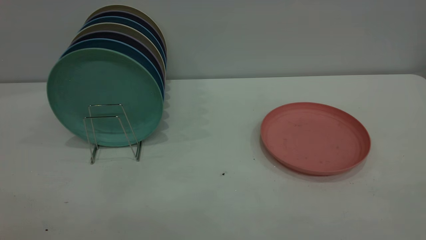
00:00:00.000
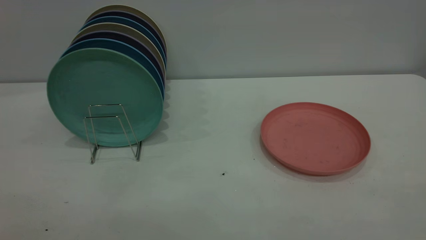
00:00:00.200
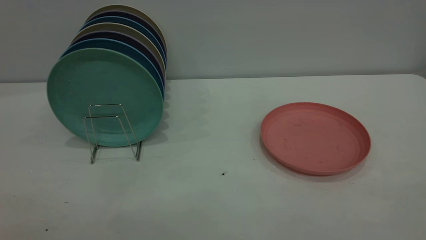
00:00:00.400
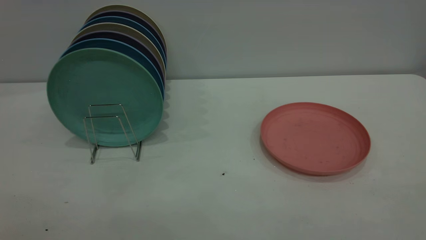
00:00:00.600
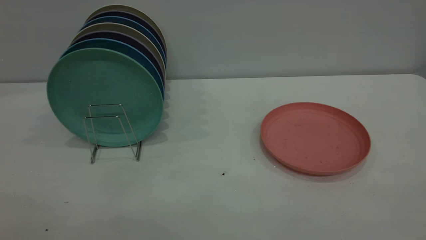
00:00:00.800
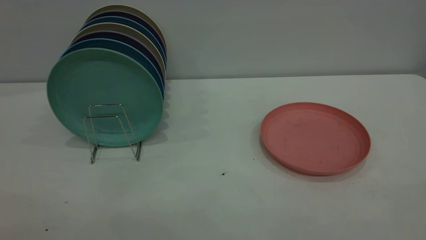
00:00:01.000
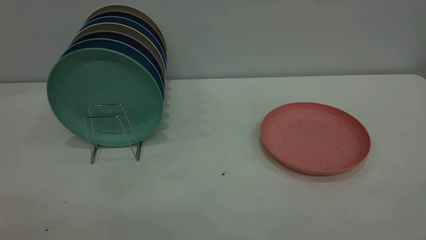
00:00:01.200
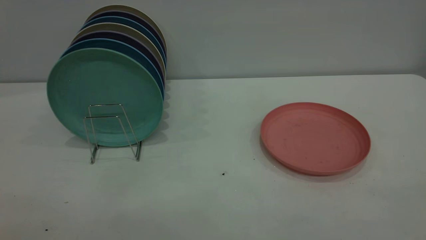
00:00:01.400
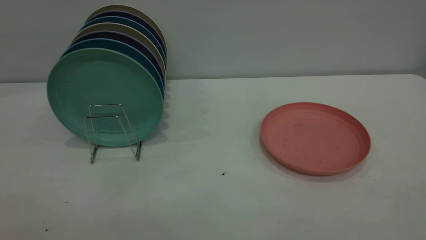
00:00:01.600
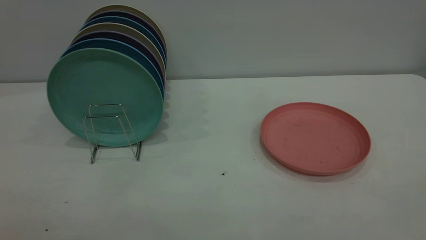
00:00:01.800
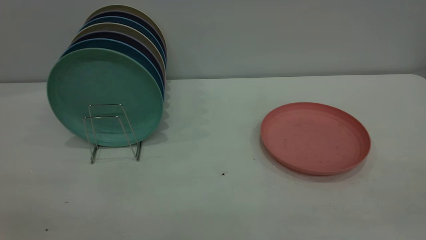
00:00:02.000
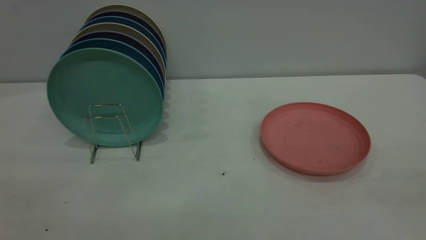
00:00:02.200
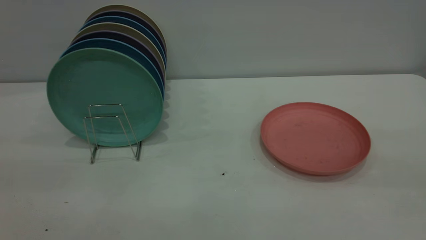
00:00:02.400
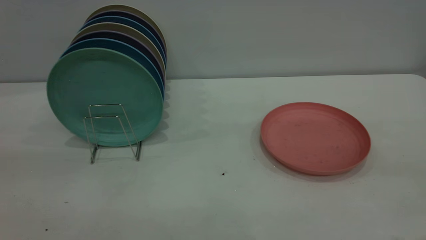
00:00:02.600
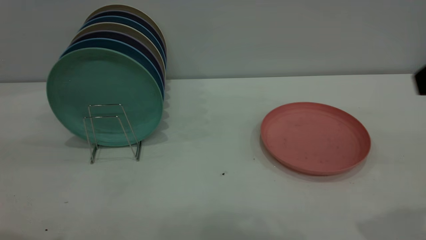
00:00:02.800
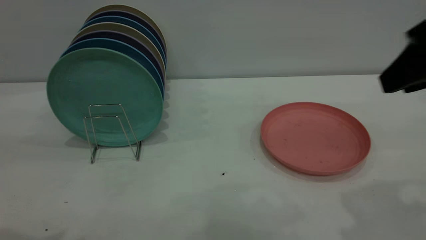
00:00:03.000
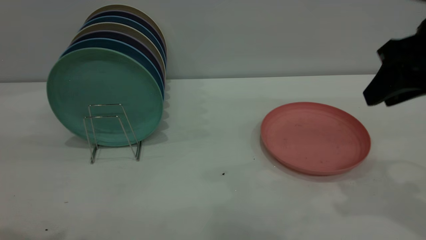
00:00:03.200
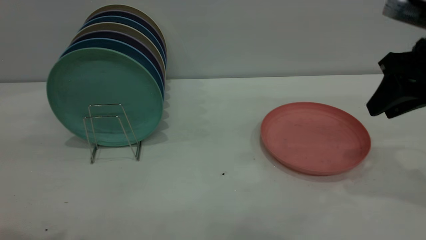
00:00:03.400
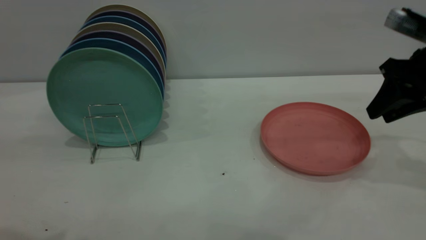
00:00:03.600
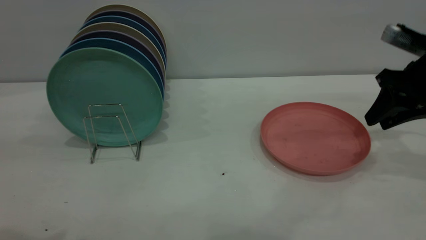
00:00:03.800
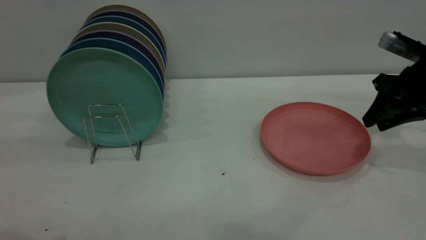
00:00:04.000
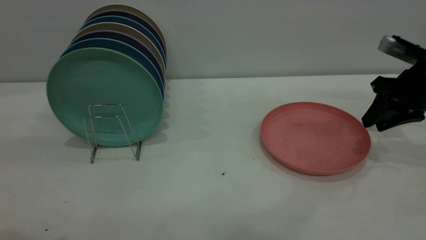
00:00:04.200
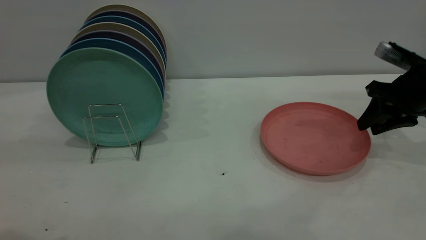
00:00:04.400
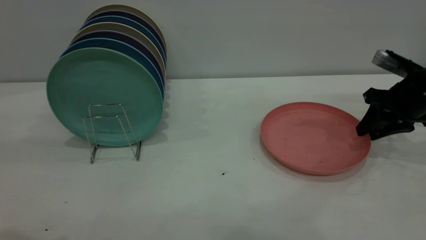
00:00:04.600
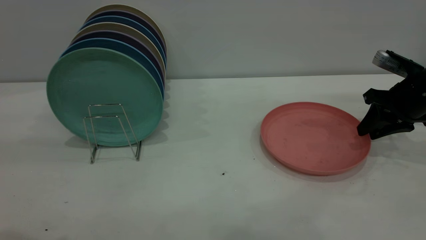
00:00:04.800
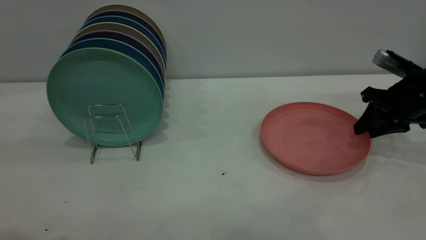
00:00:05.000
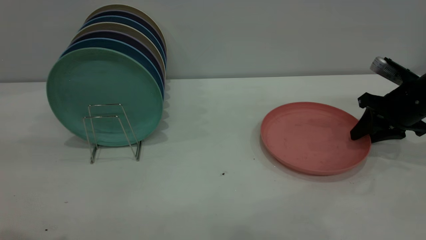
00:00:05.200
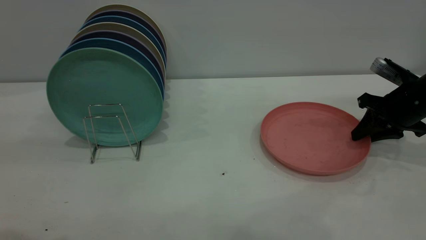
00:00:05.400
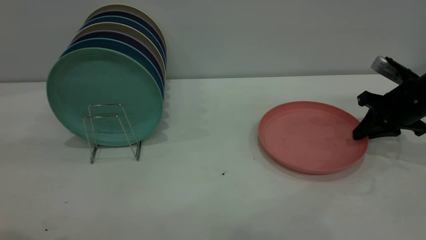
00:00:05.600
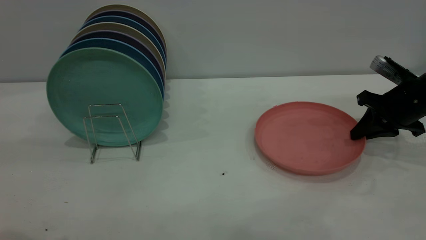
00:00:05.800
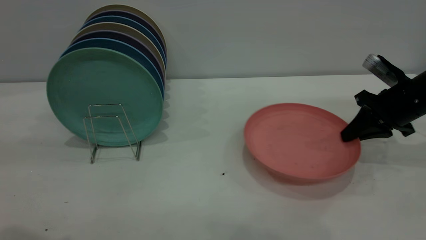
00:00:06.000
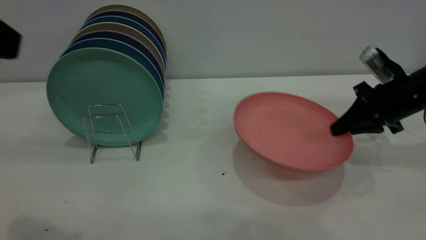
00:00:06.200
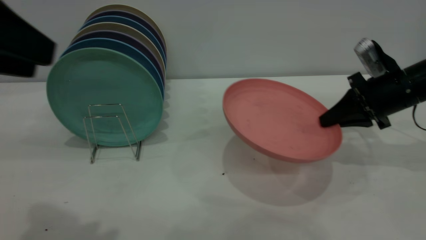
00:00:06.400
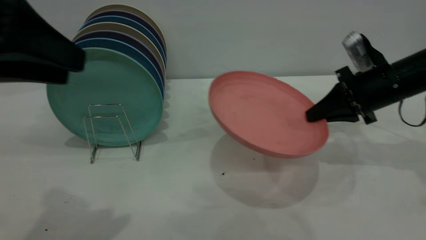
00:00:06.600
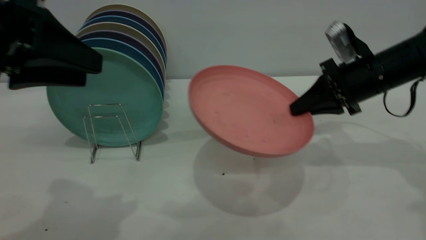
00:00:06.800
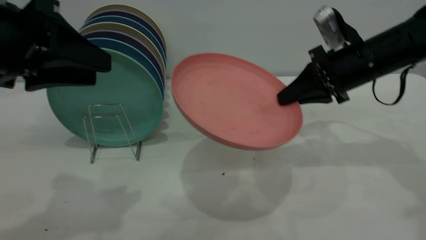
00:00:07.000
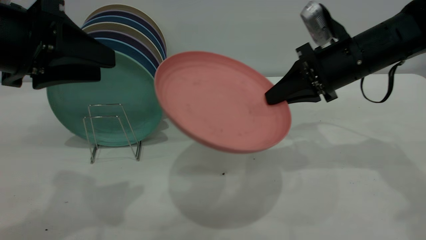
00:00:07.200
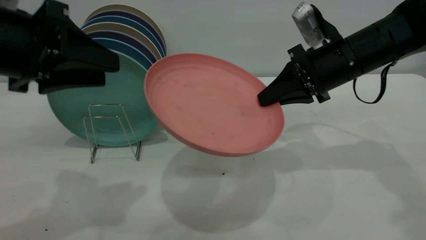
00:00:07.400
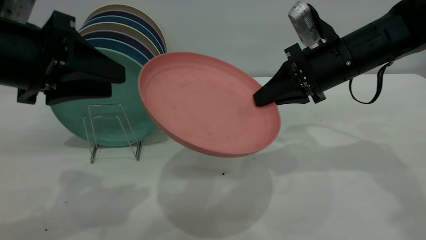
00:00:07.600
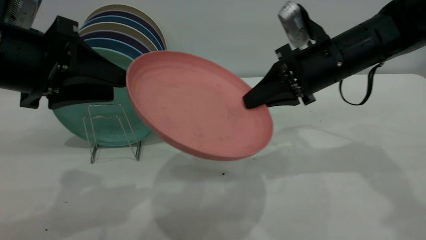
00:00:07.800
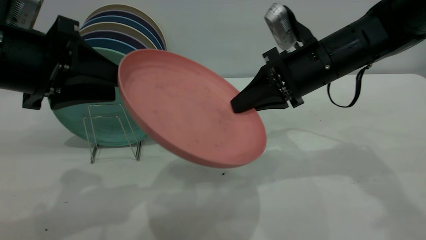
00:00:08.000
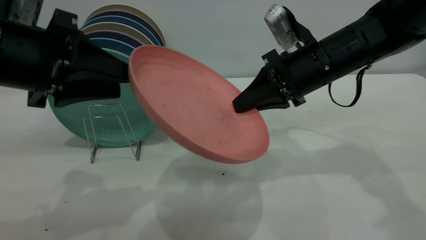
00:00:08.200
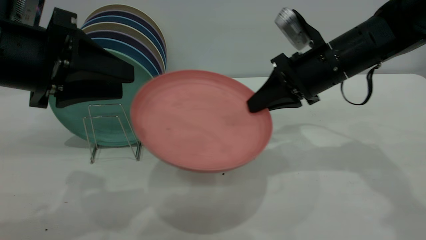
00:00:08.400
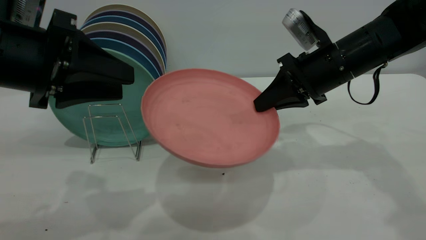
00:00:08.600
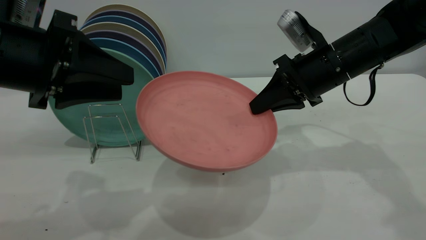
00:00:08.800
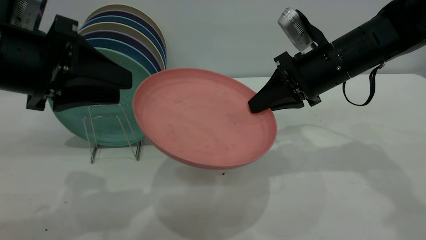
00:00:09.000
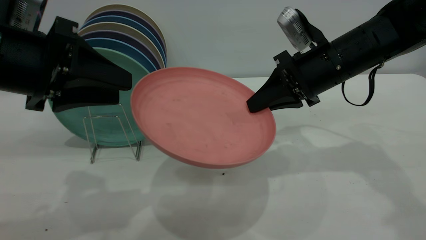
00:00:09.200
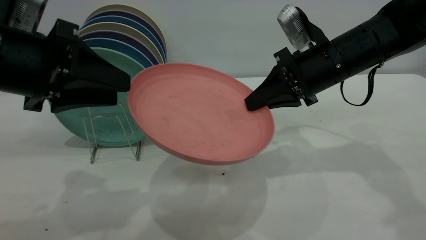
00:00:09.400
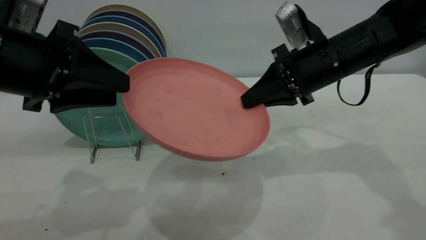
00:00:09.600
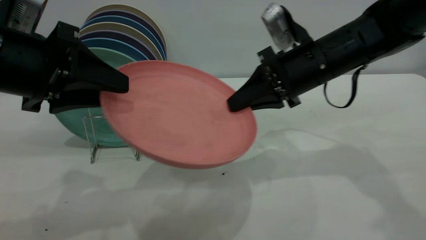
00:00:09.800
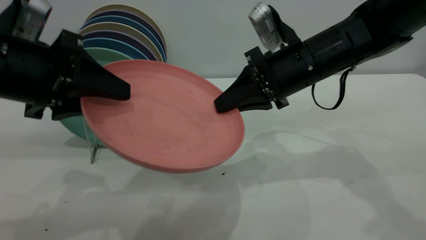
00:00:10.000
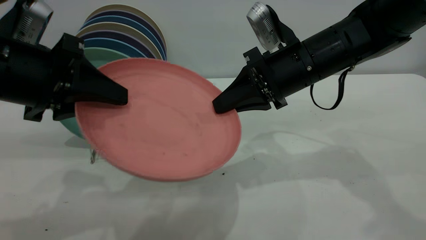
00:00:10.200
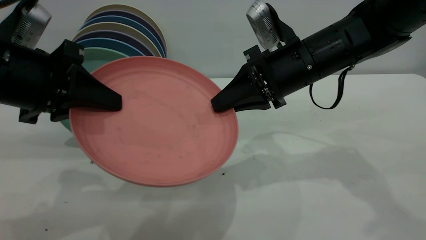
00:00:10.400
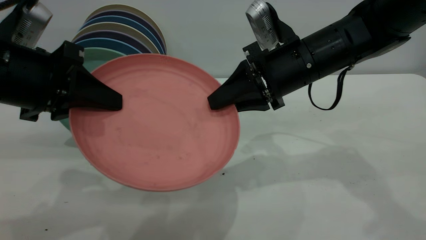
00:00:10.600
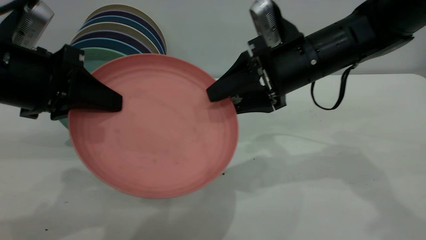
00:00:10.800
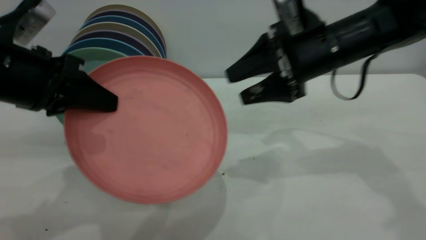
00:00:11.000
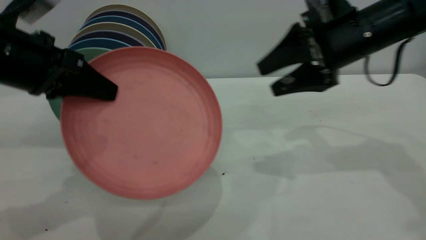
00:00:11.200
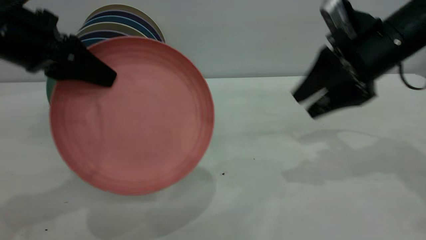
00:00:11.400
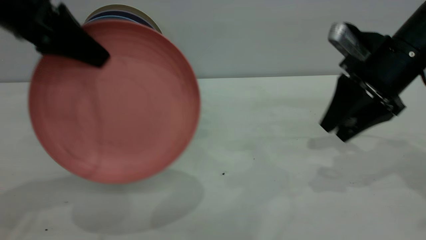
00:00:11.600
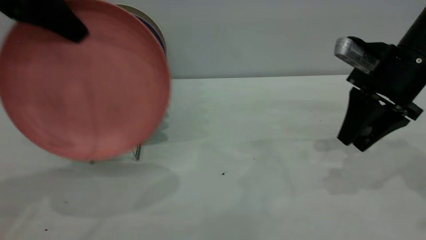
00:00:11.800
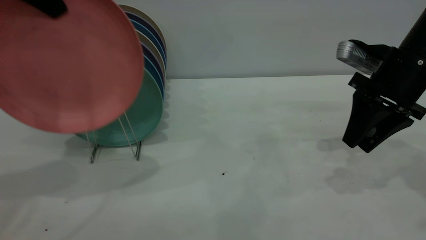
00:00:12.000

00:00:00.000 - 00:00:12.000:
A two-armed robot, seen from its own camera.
Task of the whole recording: the right gripper grasp the pink plate, the right gripper pass the pink plate to the left gripper, and the left gripper place the pink plate on the plate rack.
Step, 00:00:00.000 - 00:00:06.200: Pick up the plate with the right gripper.
Step, 00:00:06.400 - 00:00:10.800: Pass the plate from the right gripper to the left gripper.
00:00:00.000 - 00:00:01.600: Both grippers stay about where they are.
00:00:01.600 - 00:00:03.000: The right gripper goes roughly 25 cm forward.
00:00:03.000 - 00:00:04.400: The right gripper moves forward, downward and to the right, about 25 cm.
00:00:04.400 - 00:00:06.000: The right gripper closes up.
00:00:06.000 - 00:00:07.600: The left gripper moves downward and forward, approximately 15 cm; the right gripper goes roughly 15 cm to the left and upward.
00:00:07.600 - 00:00:09.000: The grippers move only a little.
00:00:09.000 - 00:00:10.400: The left gripper closes its fingers, while the right gripper ends up approximately 5 cm from where it was.
00:00:10.400 - 00:00:12.000: The left gripper is displaced upward and forward by approximately 20 cm. The right gripper moves to the right, approximately 15 cm, and opens up.

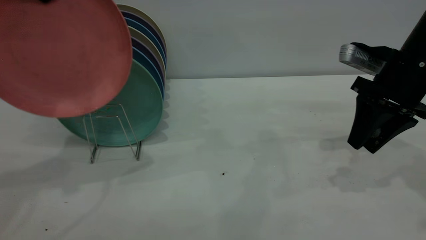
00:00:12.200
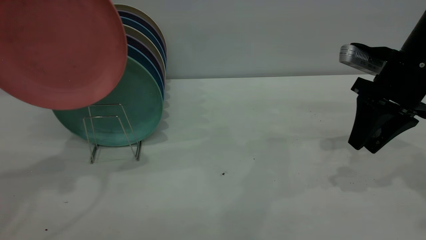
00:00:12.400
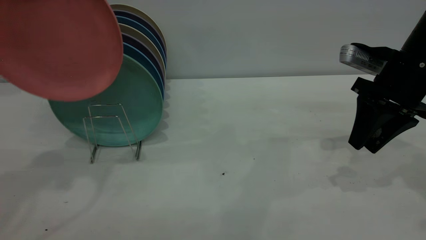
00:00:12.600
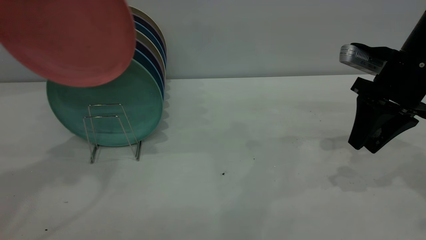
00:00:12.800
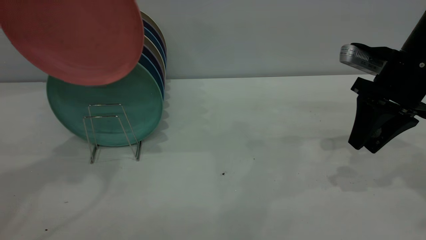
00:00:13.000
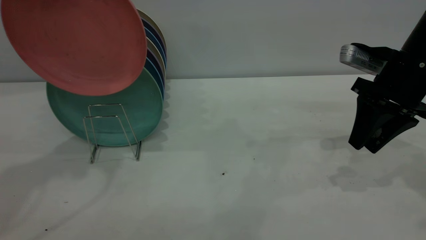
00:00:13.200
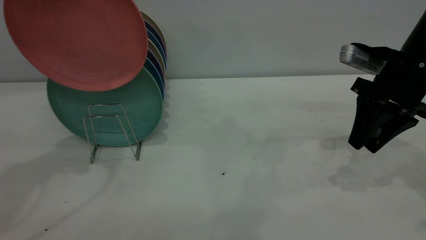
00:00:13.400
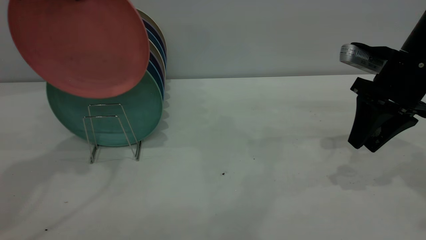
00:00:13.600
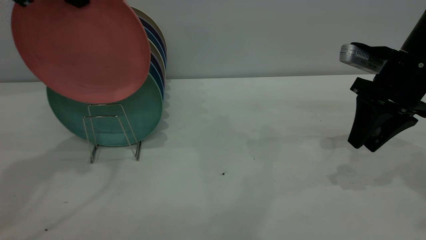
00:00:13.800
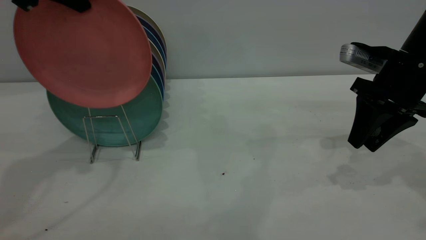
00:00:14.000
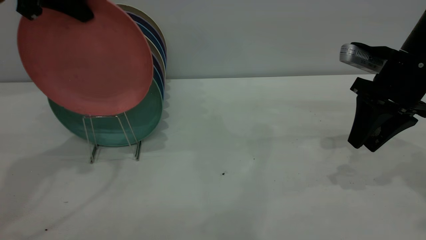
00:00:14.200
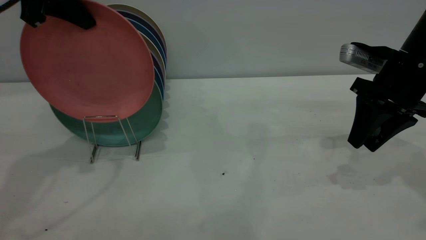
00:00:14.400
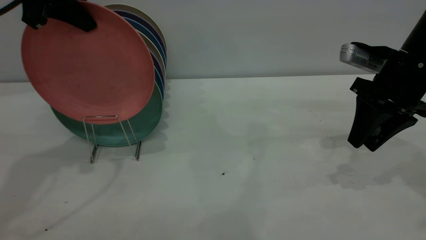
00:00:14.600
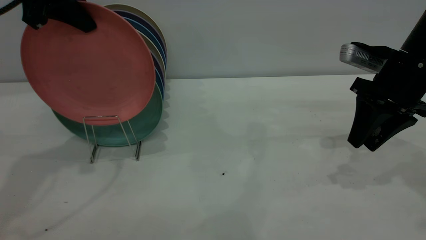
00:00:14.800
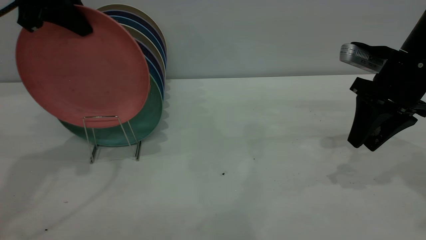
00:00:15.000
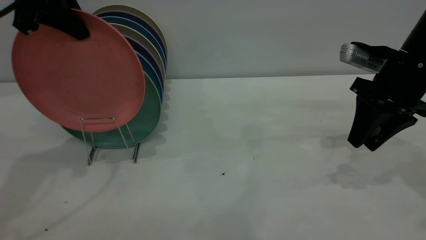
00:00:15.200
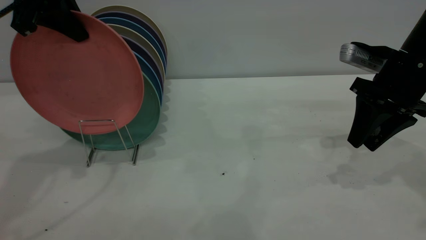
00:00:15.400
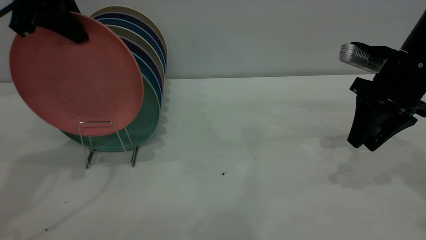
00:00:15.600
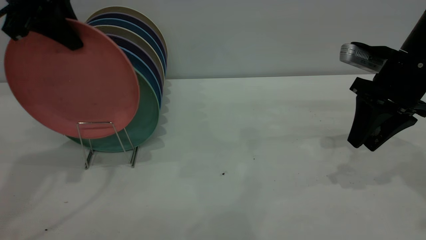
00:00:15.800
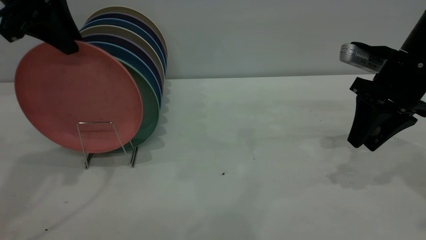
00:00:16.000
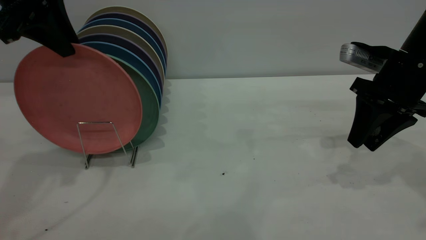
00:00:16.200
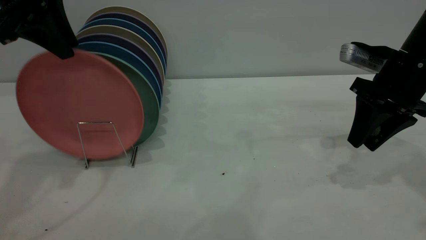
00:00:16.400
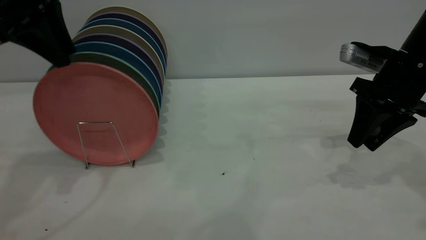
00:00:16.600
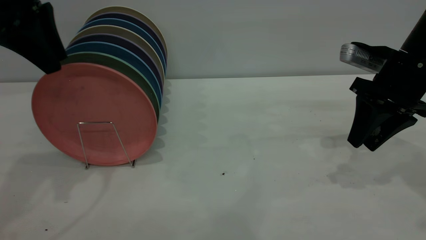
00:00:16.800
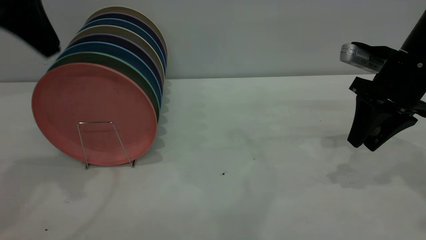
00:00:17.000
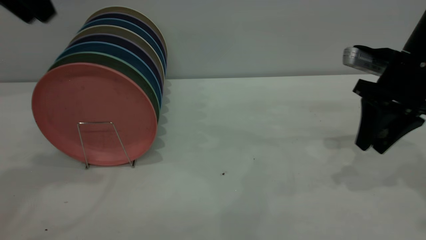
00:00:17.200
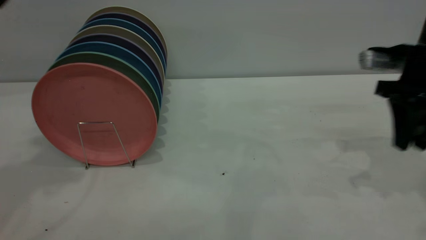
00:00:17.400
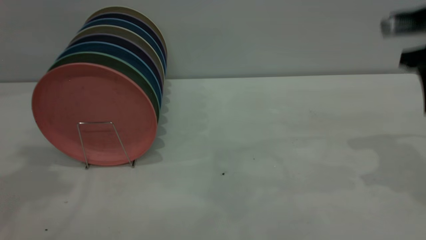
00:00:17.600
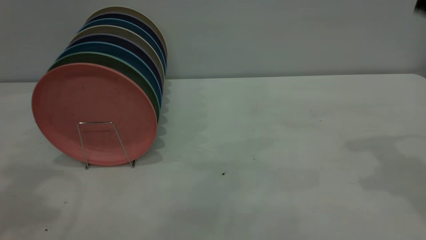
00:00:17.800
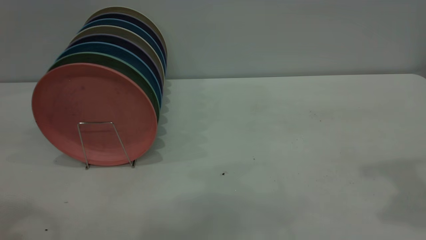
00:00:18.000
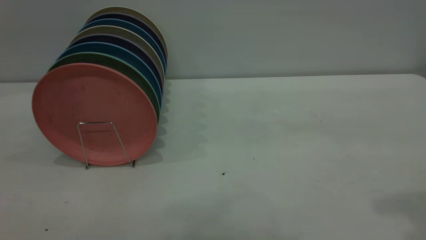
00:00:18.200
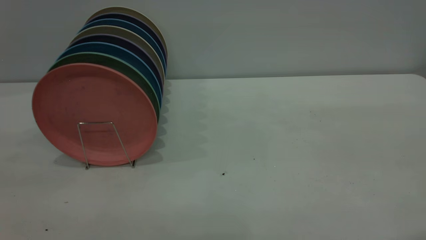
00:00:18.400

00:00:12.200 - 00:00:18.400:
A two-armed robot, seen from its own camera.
Task of the whole recording: the right gripper grasp the pink plate, the right gripper pass the pink plate to the left gripper, and the left gripper place the pink plate on the plate rack.
Step, 00:00:12.200 - 00:00:17.000: Place the plate on the shelf.
00:00:12.200 - 00:00:13.800: The left gripper ends up approximately 5 cm from where it was.
00:00:13.800 - 00:00:15.400: There are only small adjustments of the grippers.
00:00:15.400 - 00:00:16.800: The left gripper opens up.
00:00:16.800 - 00:00:18.400: The right gripper is displaced backward and upward by some 30 cm; the left gripper moves backward, some 30 cm.
